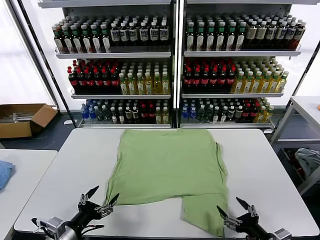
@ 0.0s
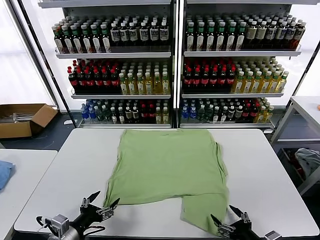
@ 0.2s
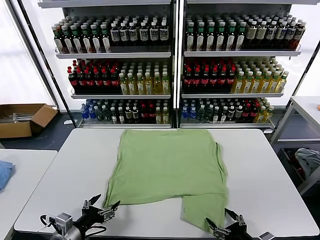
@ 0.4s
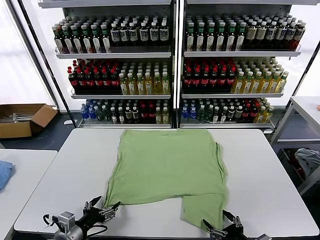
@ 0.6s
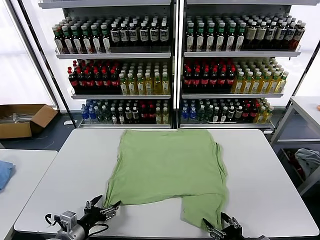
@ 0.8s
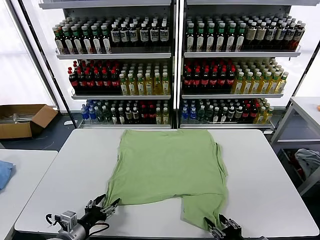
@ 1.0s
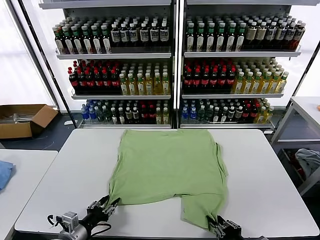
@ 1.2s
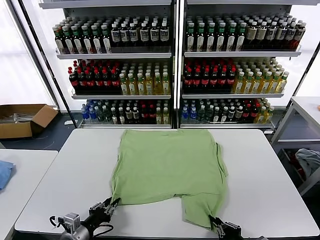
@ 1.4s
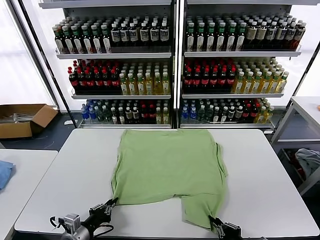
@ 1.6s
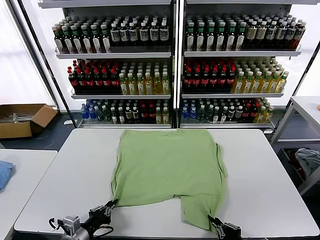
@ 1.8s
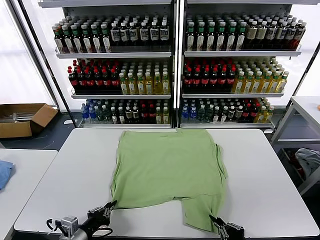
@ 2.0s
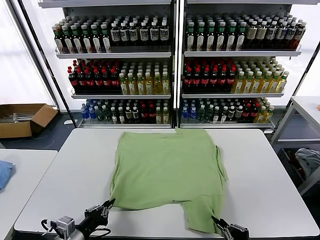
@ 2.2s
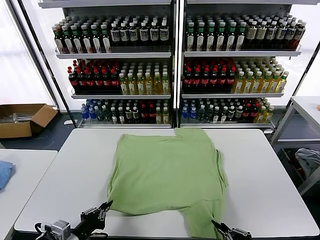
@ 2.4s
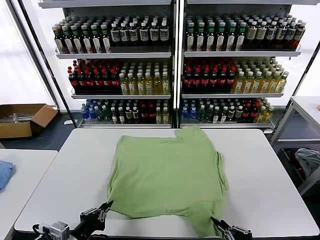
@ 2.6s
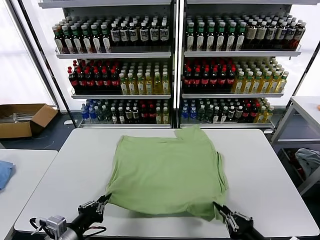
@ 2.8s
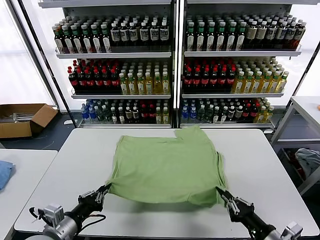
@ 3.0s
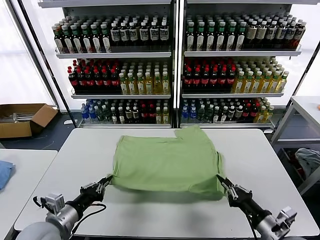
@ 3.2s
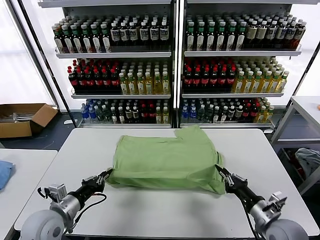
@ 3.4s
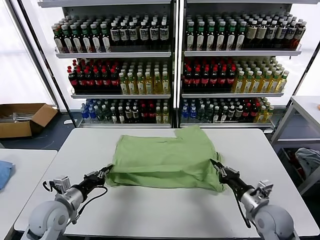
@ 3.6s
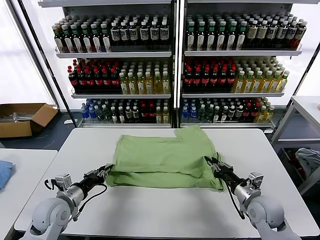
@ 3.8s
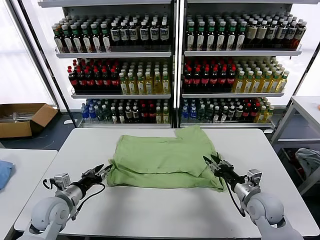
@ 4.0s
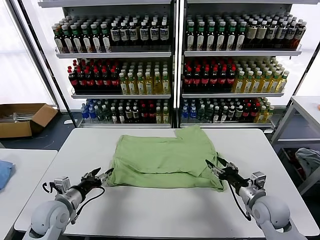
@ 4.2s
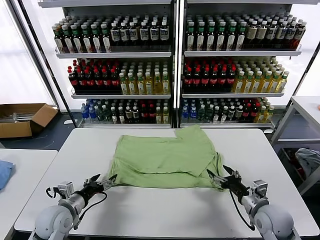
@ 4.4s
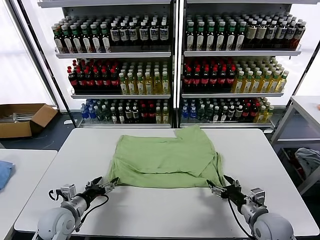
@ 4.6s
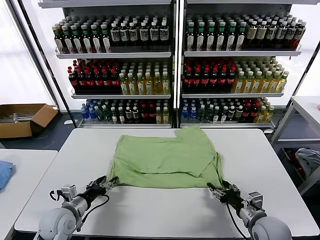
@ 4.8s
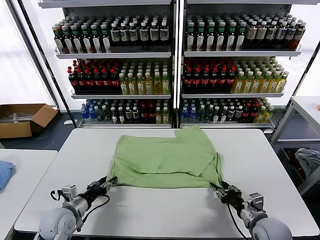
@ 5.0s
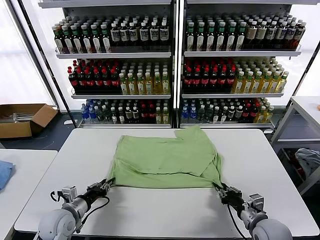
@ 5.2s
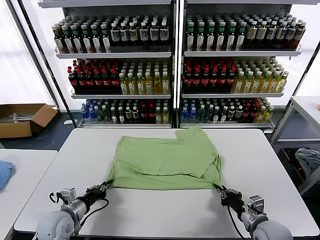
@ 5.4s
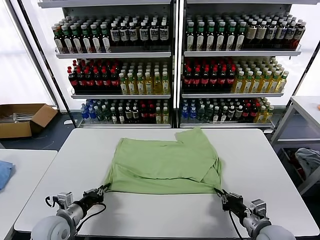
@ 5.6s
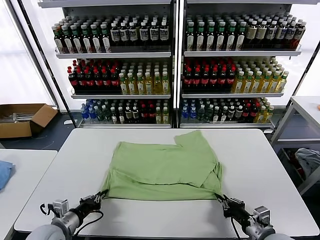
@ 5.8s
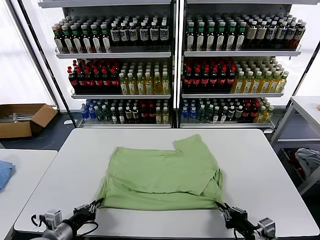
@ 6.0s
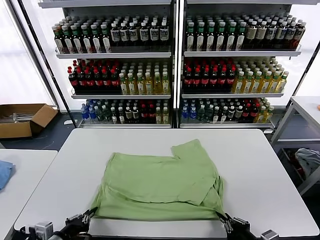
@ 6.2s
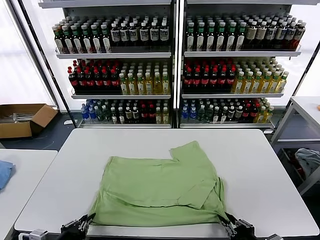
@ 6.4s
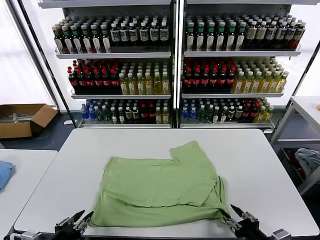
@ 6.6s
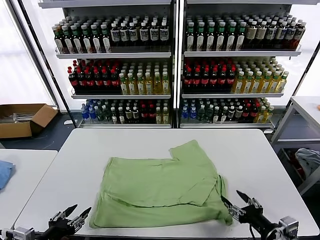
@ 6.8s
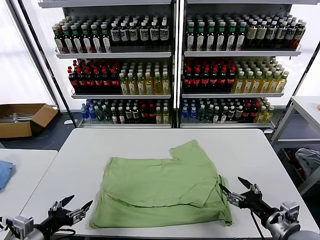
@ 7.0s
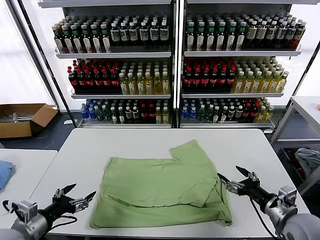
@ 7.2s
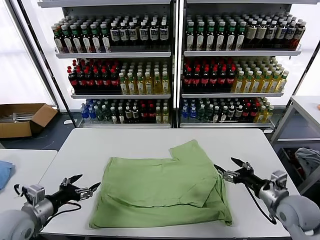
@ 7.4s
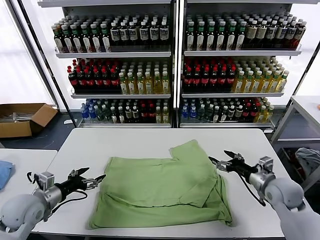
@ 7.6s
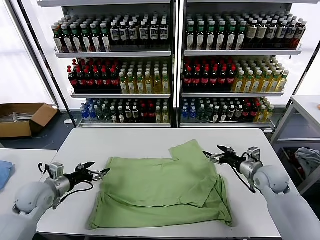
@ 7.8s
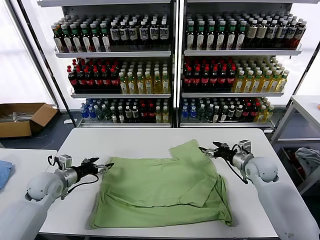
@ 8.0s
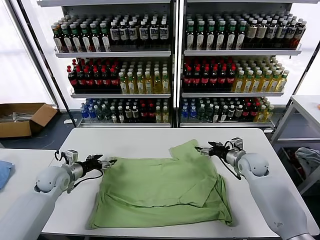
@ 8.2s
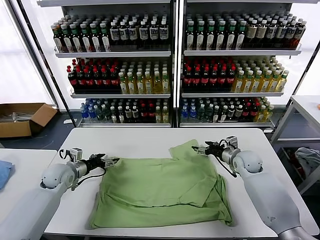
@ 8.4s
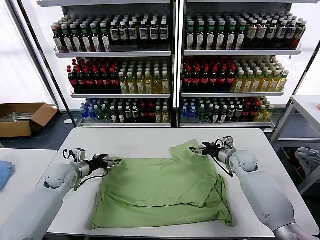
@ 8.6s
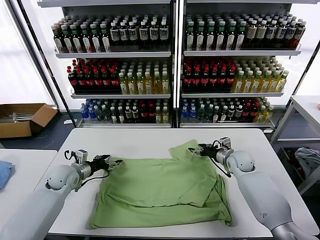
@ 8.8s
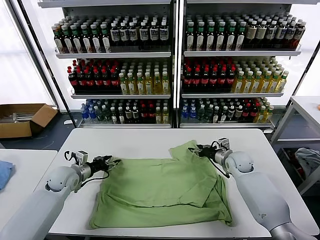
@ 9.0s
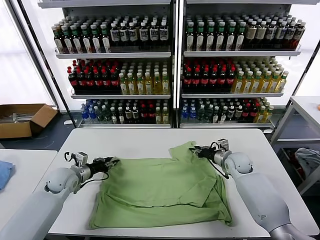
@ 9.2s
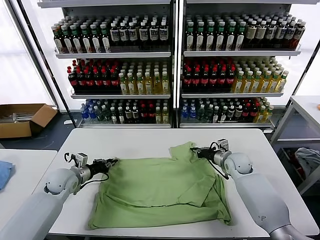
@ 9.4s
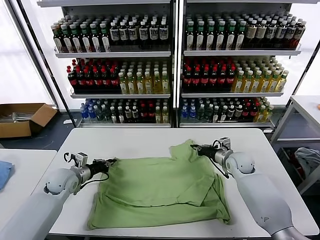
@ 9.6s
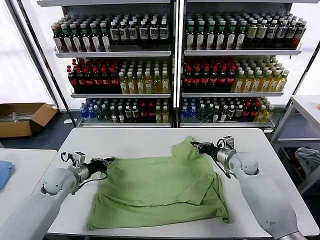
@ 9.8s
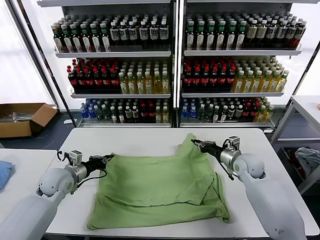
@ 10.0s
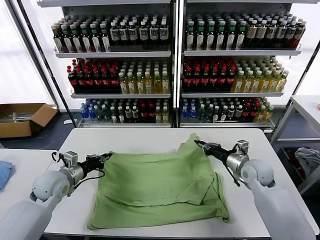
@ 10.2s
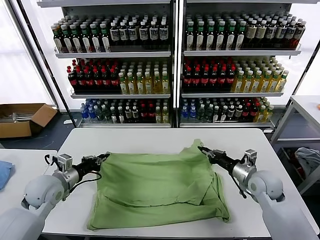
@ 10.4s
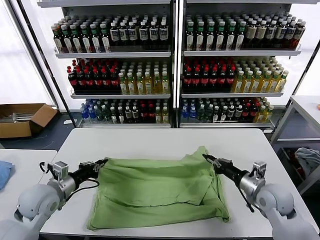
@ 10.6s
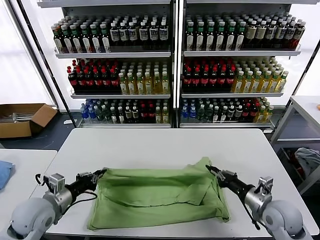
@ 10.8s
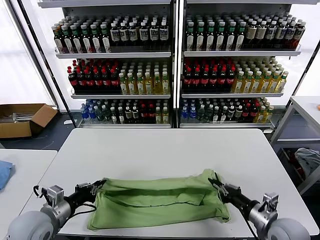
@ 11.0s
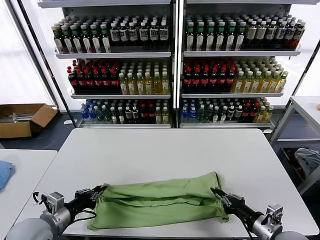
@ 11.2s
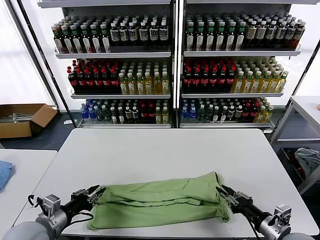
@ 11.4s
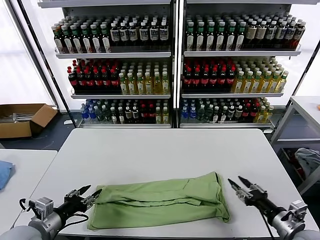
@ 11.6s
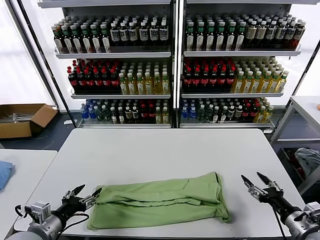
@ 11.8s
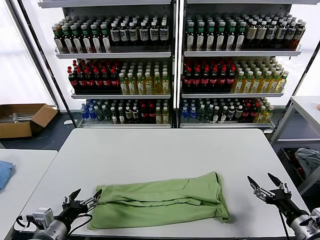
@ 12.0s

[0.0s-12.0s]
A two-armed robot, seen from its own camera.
Task of the whole recording: fold and organize the clothes.
Step, 0.0s to 1.6s: use both grippers simultaneously to clamp the lower edge of the clothing fabric.
Step, 1.8s to 4.2s: use both grippers to drag the lower edge of the fabric forward and fold it over the upper edge.
Step, 4.4s to 6.6s: Drag the clothes downward with both gripper.
Step, 6.8s to 9.4s: use both grippers simultaneously to clamp the upper edge of the clothing fabric.
Step, 9.6s to 11.4s: use both grippers to drag the upper edge of the fabric backward and fold it over the lower edge.
1.6s to 3.0s: The two grippers go about 10 cm upward.
3.0s to 4.4s: The right gripper heads forward, covering approximately 10 cm, and opens up. Meanwhile the left gripper shifts about 15 cm forward and downward, and opens its fingers.
4.4s to 6.0s: The grippers both shift backward by about 10 cm. The right gripper closes its fingers, while the left gripper closes.
6.0s to 7.6s: The right gripper travels forward by roughly 20 cm, and opens its fingers. Meanwhile the left gripper heads forward, upward and to the left, covering about 10 cm, and opens.
7.6s to 9.0s: The left gripper heads forward and downward, covering approximately 15 cm. Meanwhile the right gripper is displaced forward, to the left and downward by roughly 15 cm, and closes up.
9.0s to 10.4s: Both grippers travel together backward and upward, roughly 10 cm. The left gripper closes. The right gripper closes its fingers.
10.4s to 12.0s: The right gripper heads backward and to the right, covering some 20 cm, and opens up, while the left gripper goes approximately 15 cm backward, and opens up.

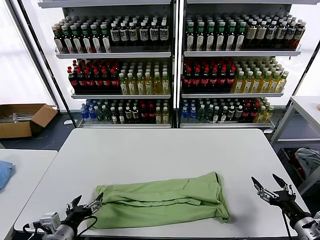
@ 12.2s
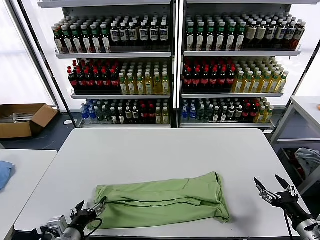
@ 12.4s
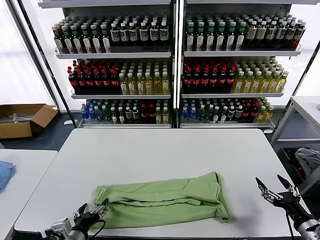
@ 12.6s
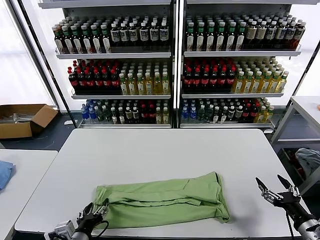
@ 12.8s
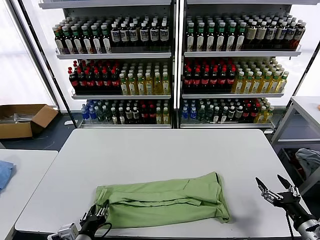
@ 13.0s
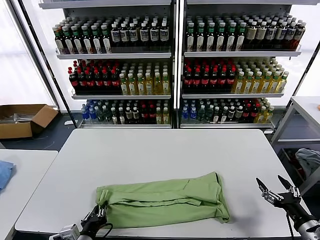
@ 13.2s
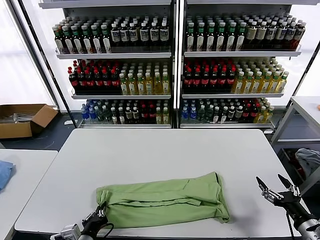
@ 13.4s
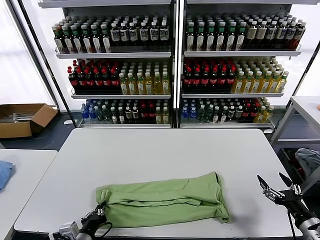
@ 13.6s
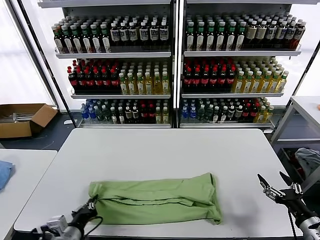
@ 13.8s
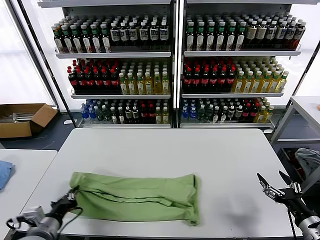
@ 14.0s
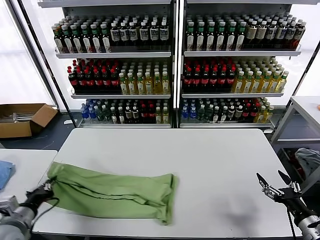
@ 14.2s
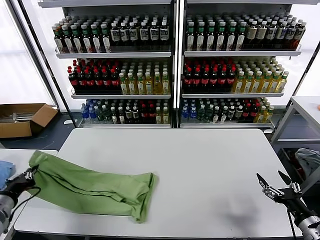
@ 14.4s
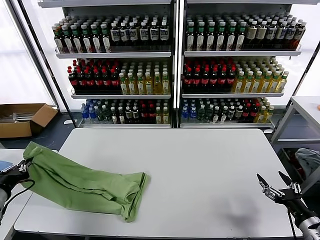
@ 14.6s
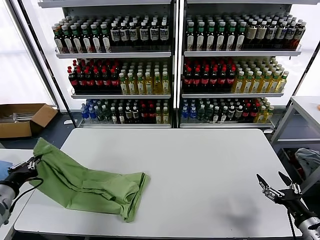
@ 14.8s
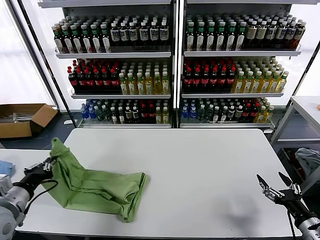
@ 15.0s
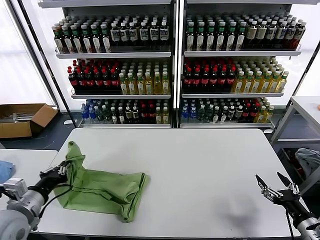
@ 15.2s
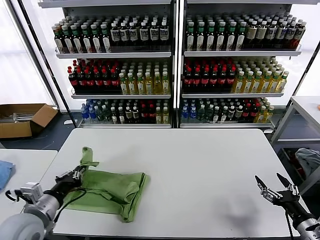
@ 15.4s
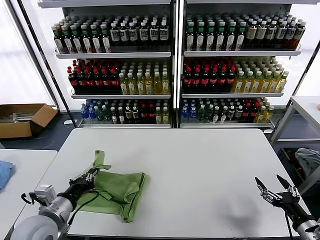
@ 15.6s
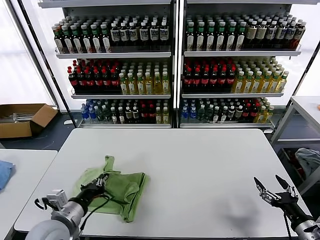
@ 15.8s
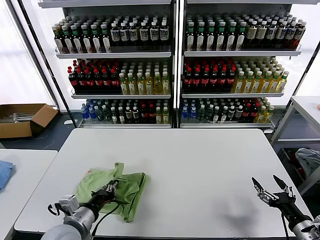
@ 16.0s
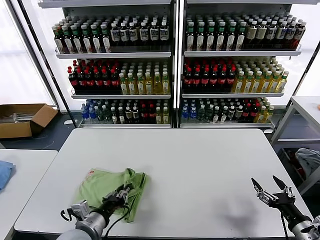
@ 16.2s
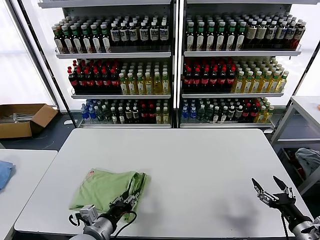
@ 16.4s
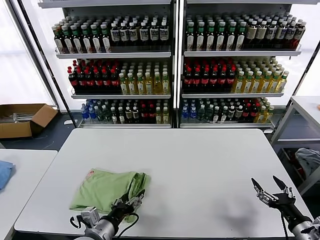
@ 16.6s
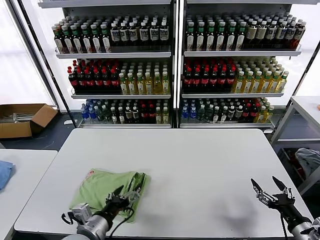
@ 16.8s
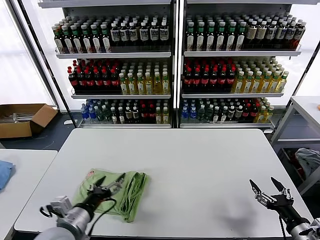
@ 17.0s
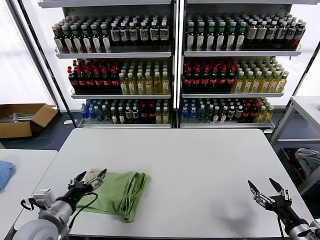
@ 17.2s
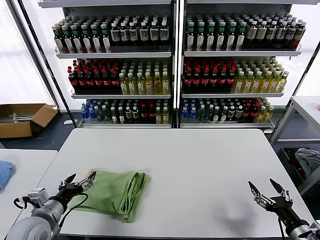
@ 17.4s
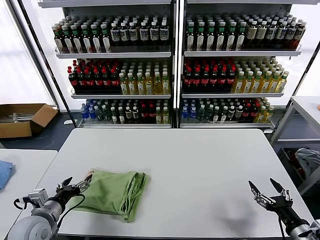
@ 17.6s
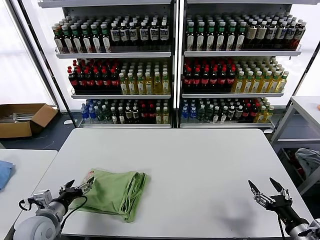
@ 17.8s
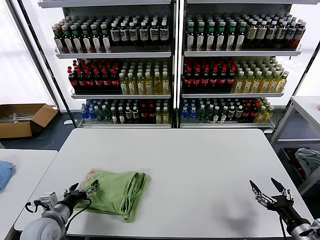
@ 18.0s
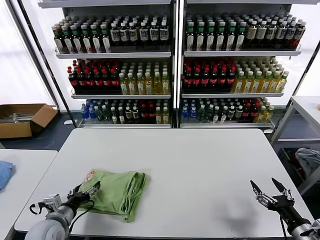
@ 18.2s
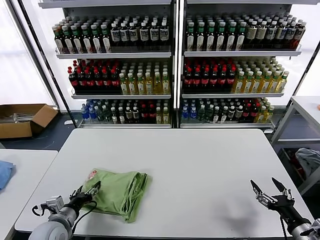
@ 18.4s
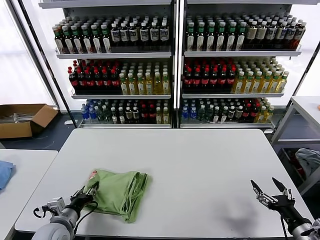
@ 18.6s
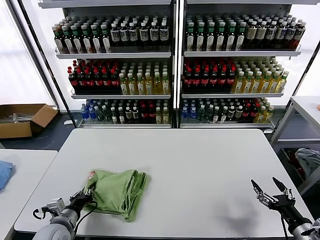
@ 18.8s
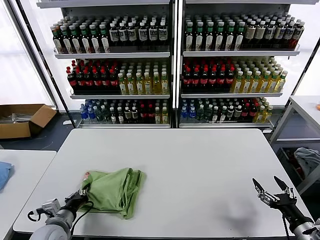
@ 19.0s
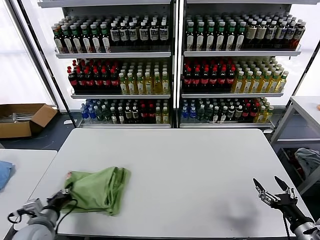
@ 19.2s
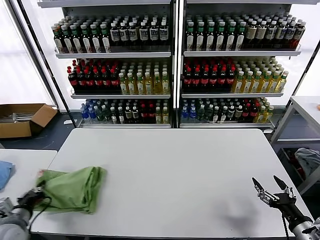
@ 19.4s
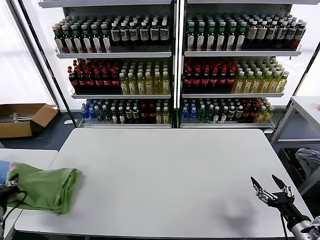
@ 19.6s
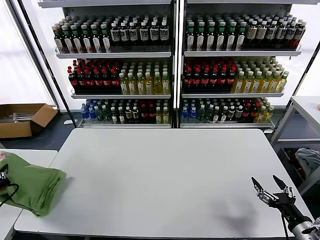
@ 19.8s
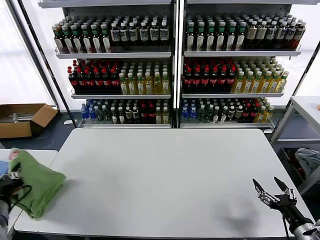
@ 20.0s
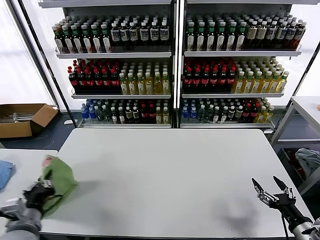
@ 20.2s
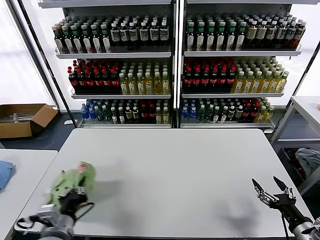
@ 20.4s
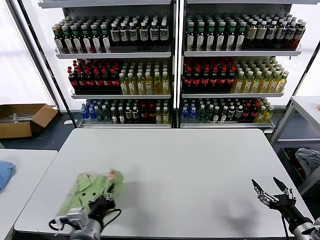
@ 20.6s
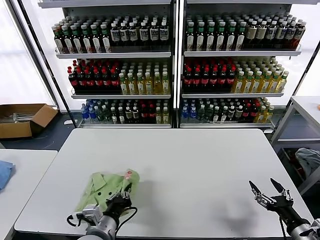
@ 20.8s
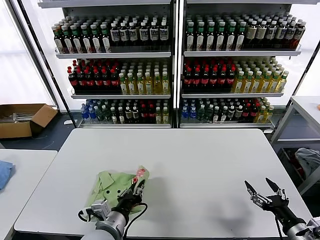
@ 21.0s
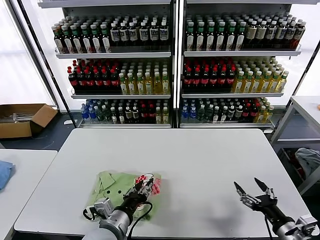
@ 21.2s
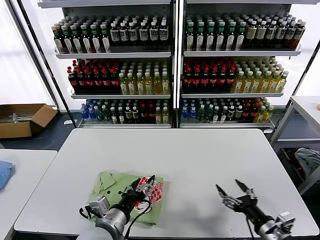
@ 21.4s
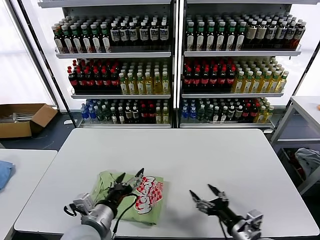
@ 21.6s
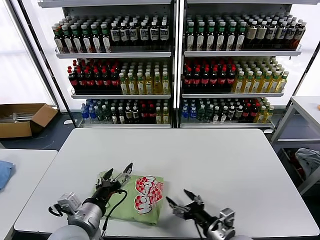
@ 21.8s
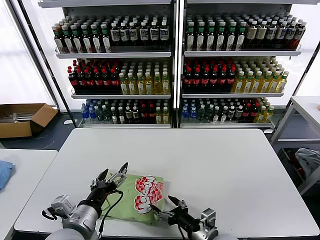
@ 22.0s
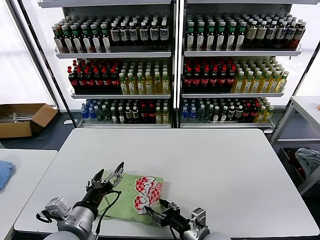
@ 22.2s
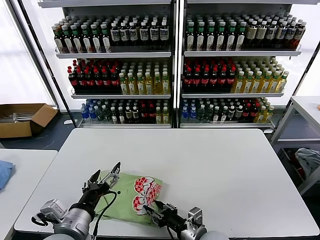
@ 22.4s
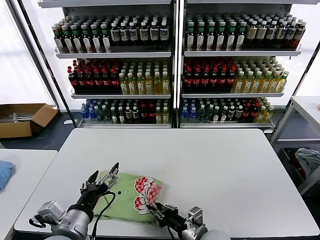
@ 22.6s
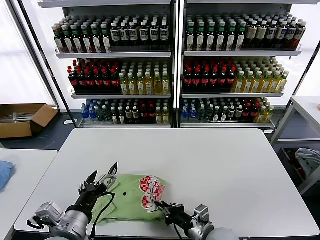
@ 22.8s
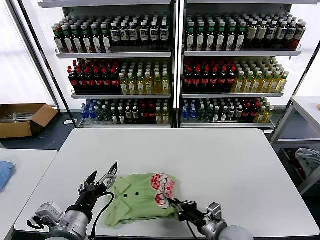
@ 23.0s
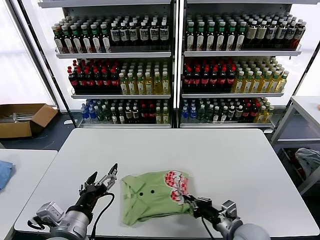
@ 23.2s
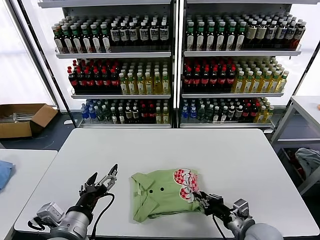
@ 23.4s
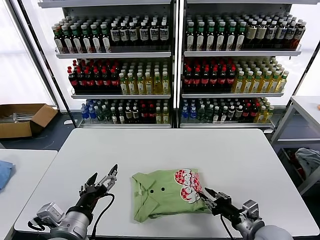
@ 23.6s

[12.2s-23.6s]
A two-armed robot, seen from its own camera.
Task of the whole recording: fold and organize the clothes.
Step, 12.2s to 13.4s: use the left gripper to clamp the left edge of the fabric.
Step, 13.6s to 16.6s: use the left gripper to drag the left edge of the fabric to the left and folds it over the right edge.
Step, 17.0s to 21.2s: Flip the folded clothes over with left gripper.
12.2s to 13.6s: The left gripper heads to the right, covering approximately 5 cm, and closes its fingers.
13.6s to 15.0s: The left gripper goes roughly 20 cm to the left and upward.
15.0s to 16.4s: The left gripper goes approximately 25 cm to the right and downward, and opens its fingers.
16.4s to 17.8s: The left gripper heads to the left, covering approximately 15 cm, and opens up.
17.8s to 19.4s: The left gripper ends up some 5 cm from where it was, and closes its fingers.
19.4s to 20.8s: The left gripper travels to the right by some 20 cm.
20.8s to 22.2s: The left gripper is displaced upward by some 5 cm, and opens up. Meanwhile the right gripper moves to the left, some 25 cm.
22.2s to 23.6s: The right gripper heads to the right, covering some 15 cm, and closes.
